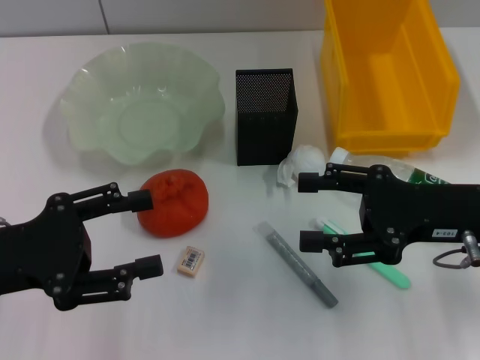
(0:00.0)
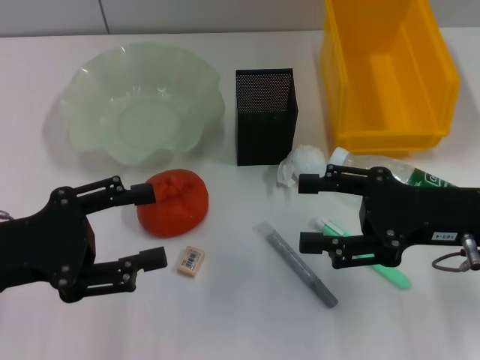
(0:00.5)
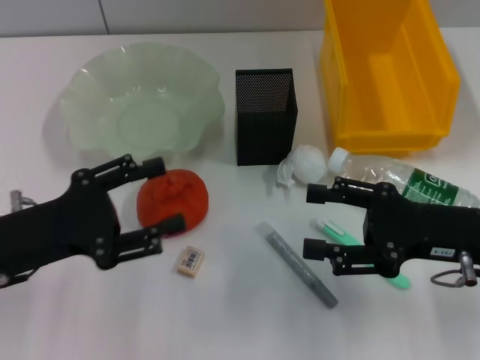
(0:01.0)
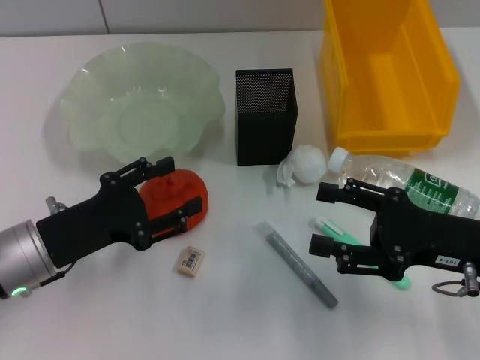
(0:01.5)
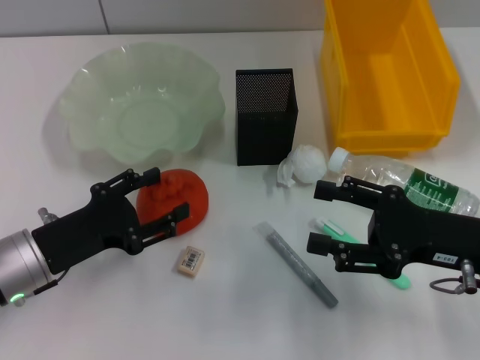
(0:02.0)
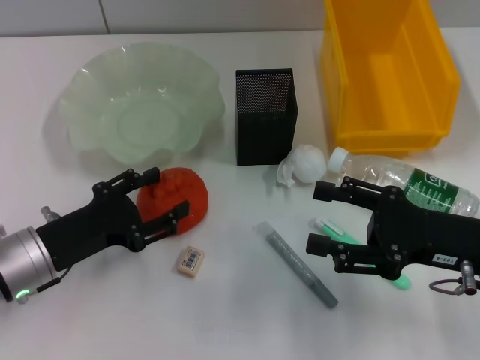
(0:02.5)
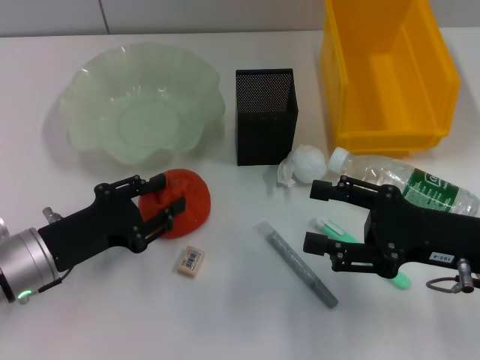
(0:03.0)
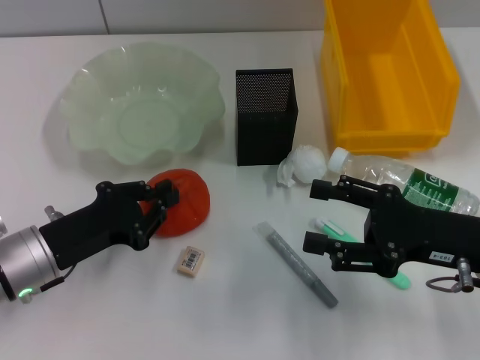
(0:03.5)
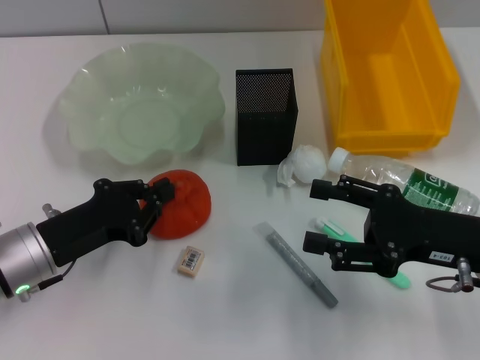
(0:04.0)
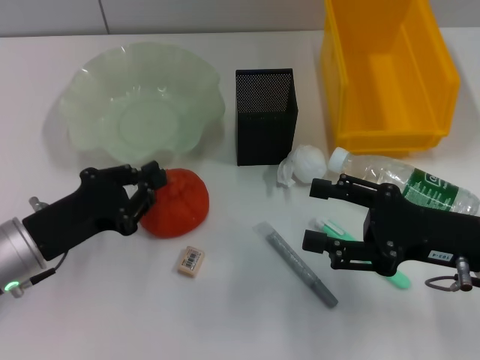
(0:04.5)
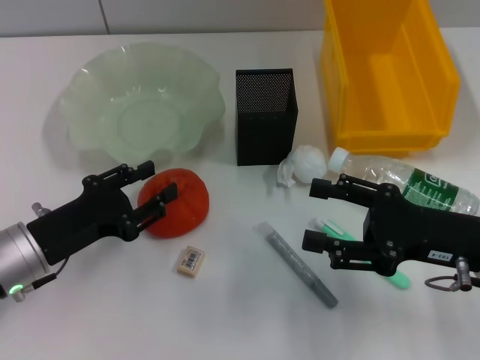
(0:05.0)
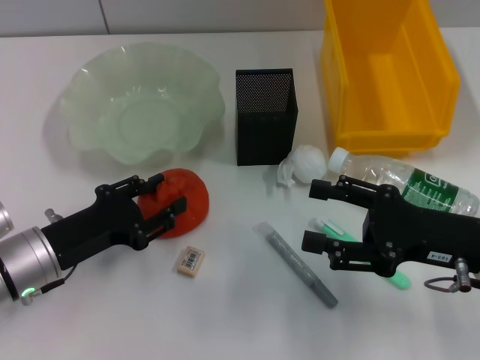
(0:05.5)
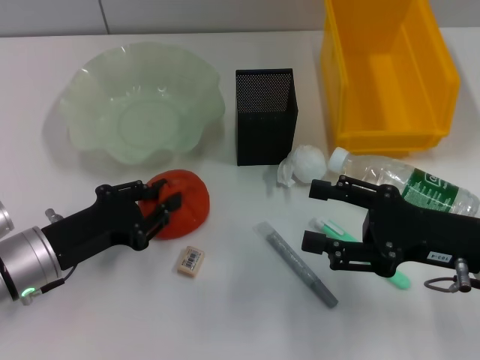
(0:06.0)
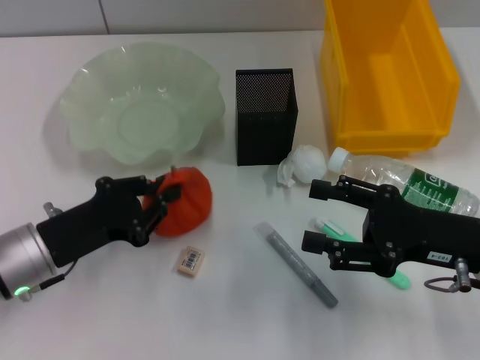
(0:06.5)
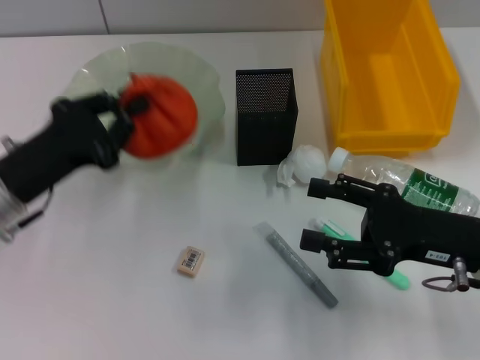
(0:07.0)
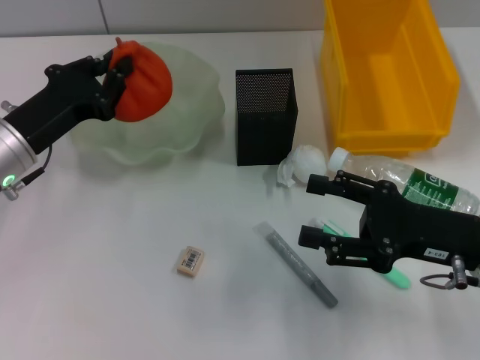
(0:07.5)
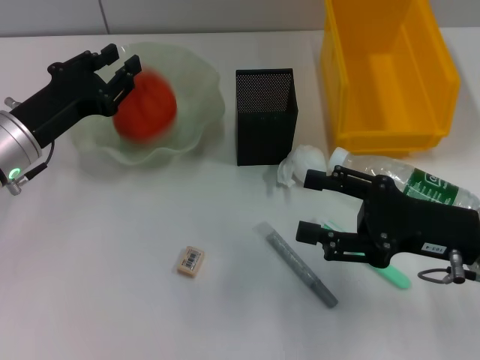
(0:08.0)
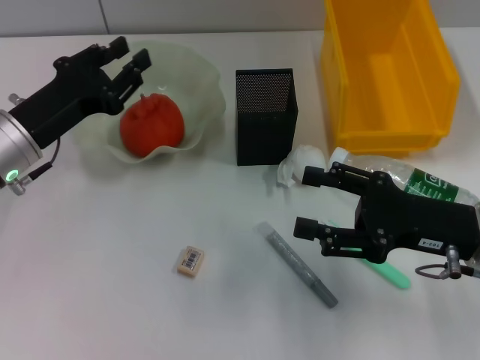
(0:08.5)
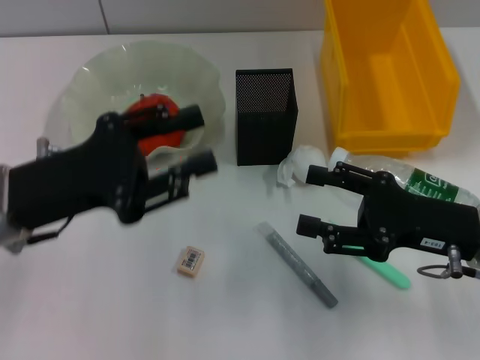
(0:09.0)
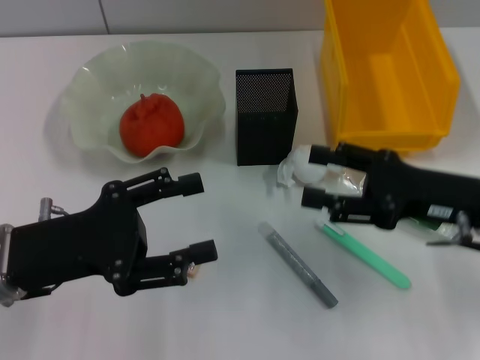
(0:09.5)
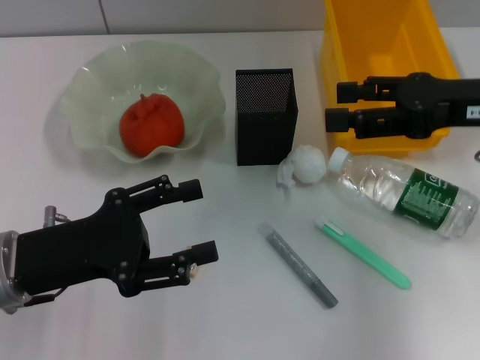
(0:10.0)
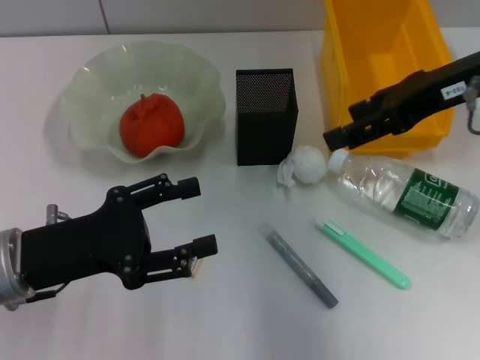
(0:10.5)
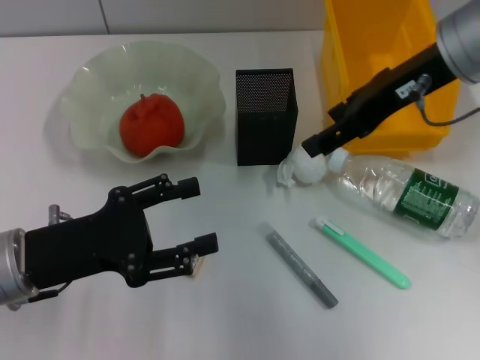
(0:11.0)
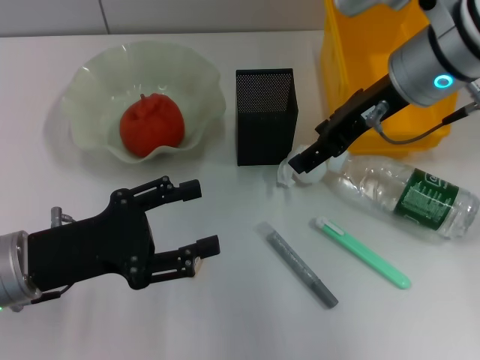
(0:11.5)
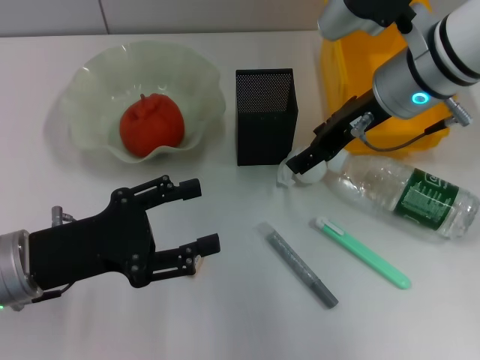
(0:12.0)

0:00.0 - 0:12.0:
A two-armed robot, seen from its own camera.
Step, 0:00.0 - 0:06.0: Grab the orange with the left hand.
Step, 0:06.5 - 0:08.0: Place the orange into the fruit bowl with the left hand.
0:00.0 - 0:02.0: The left gripper goes about 10 cm downward.
0:02.0 - 0:04.0: The left gripper closes.
0:04.0 - 0:06.0: The left gripper opens.
0:06.0 - 0:08.0: The left gripper moves forward and upward, approximately 10 cm.
0:08.0 - 0:10.0: The left gripper shifts some 10 cm backward, and opens up. Meanwhile the right gripper travels upward and forward by about 15 cm.
0:10.0 - 0:12.0: The right gripper heads to the left and forward, covering roughly 15 cm.

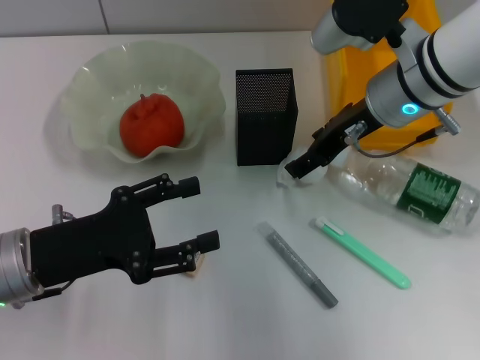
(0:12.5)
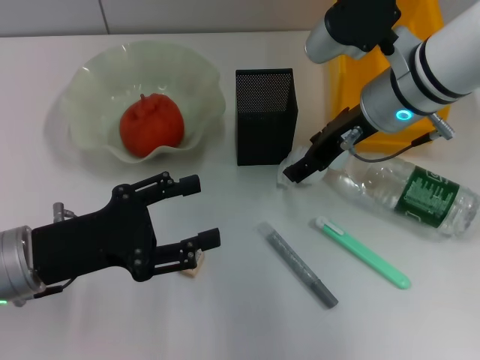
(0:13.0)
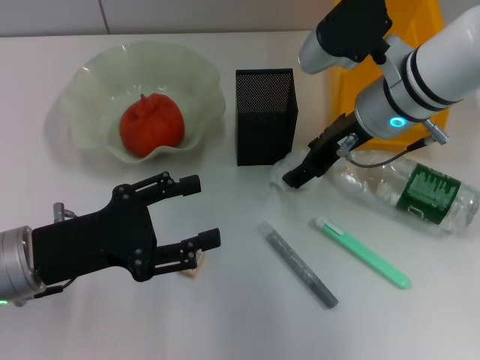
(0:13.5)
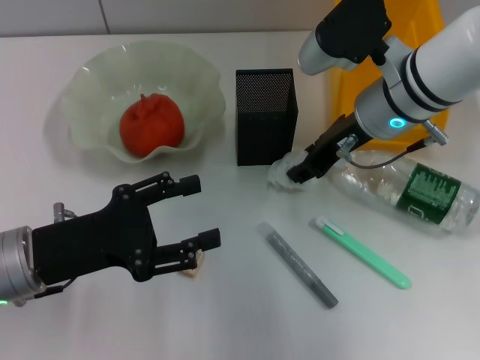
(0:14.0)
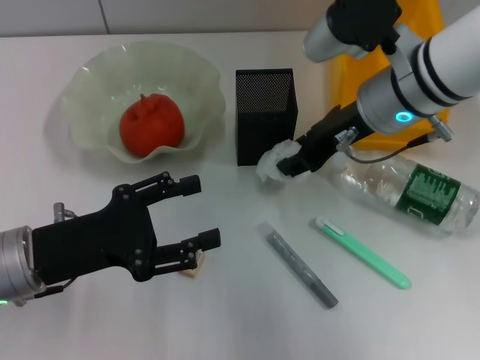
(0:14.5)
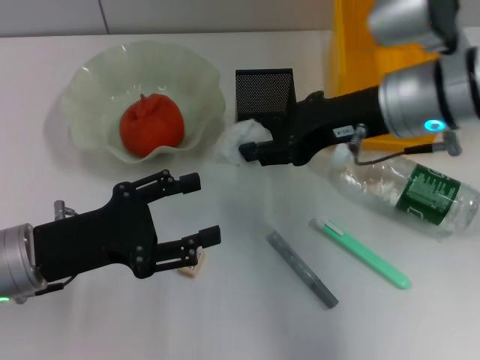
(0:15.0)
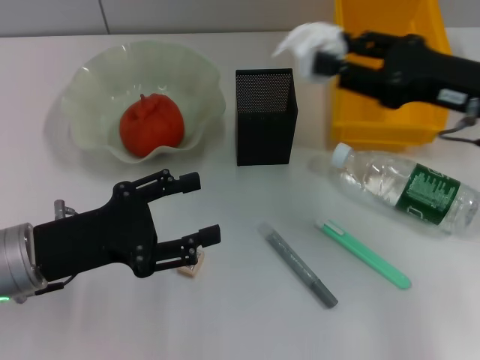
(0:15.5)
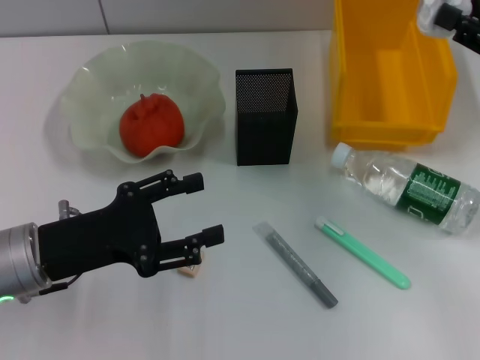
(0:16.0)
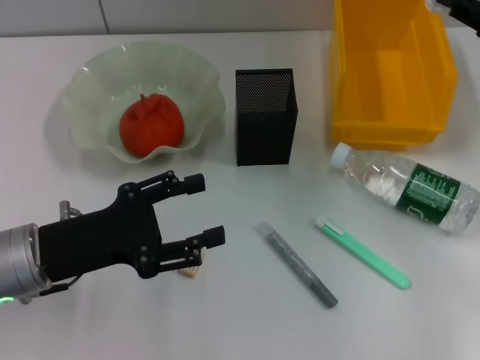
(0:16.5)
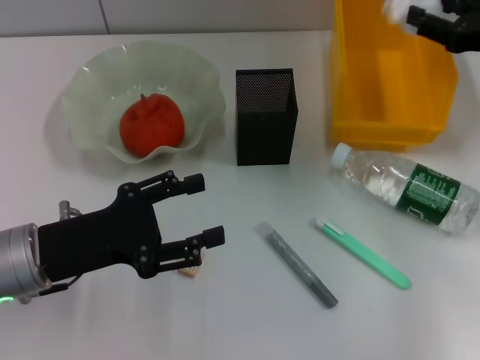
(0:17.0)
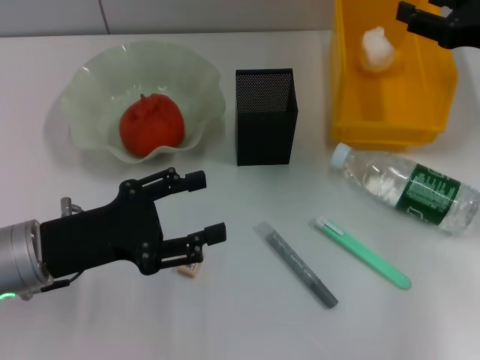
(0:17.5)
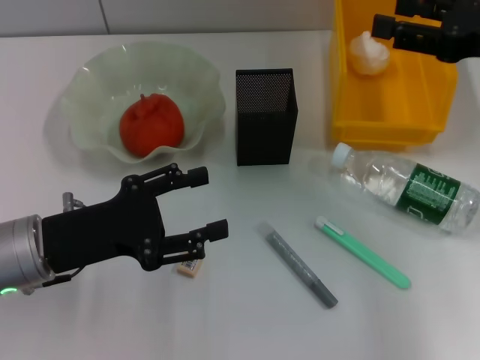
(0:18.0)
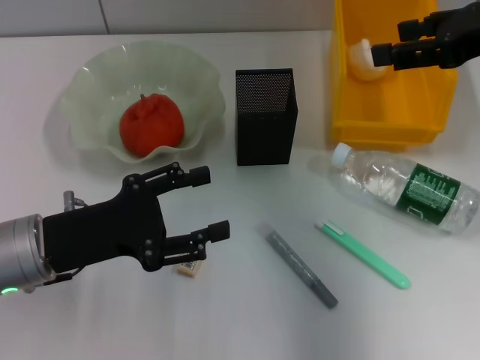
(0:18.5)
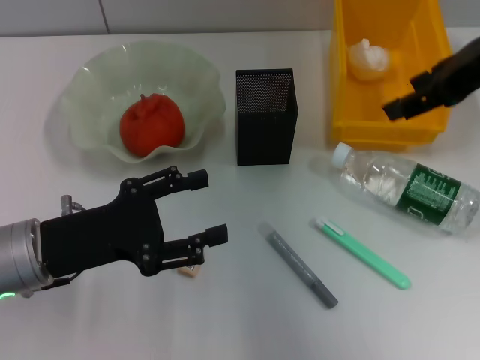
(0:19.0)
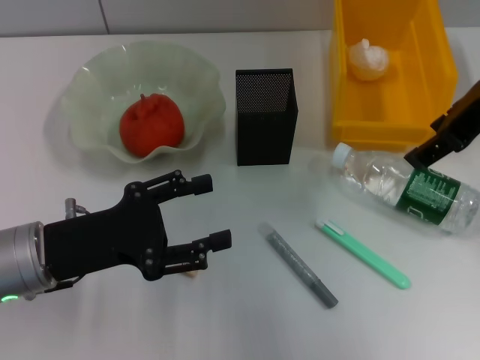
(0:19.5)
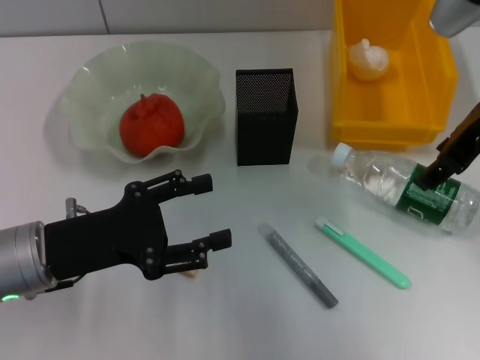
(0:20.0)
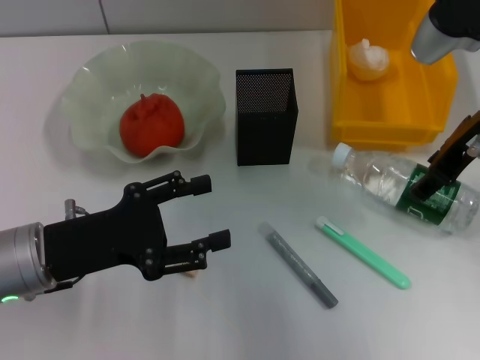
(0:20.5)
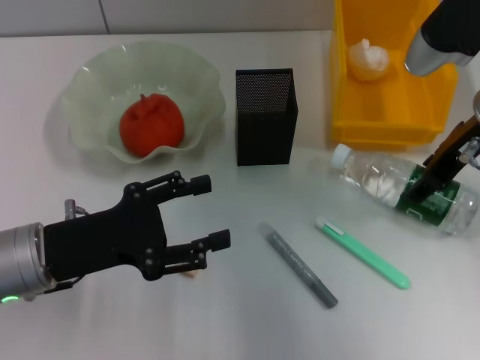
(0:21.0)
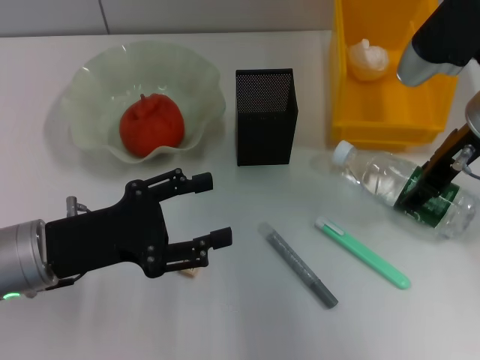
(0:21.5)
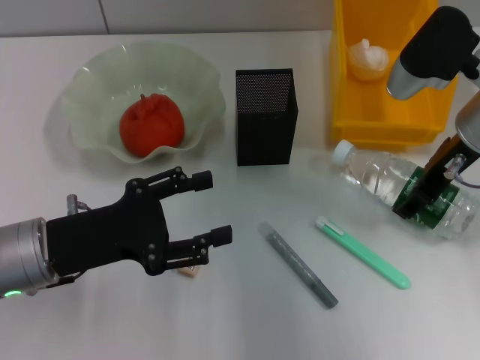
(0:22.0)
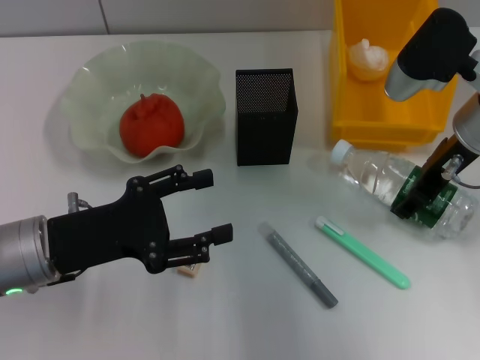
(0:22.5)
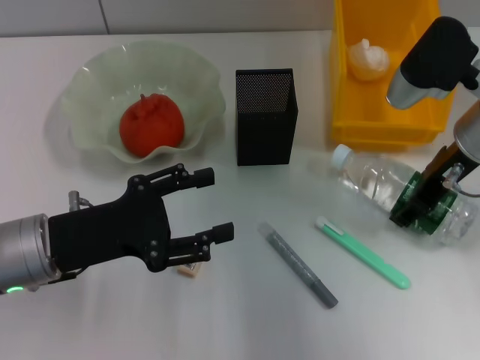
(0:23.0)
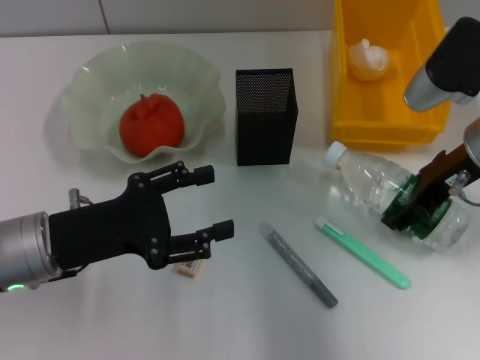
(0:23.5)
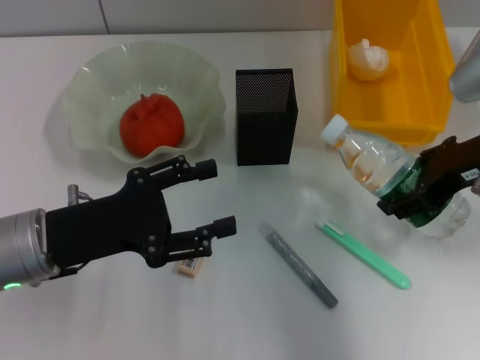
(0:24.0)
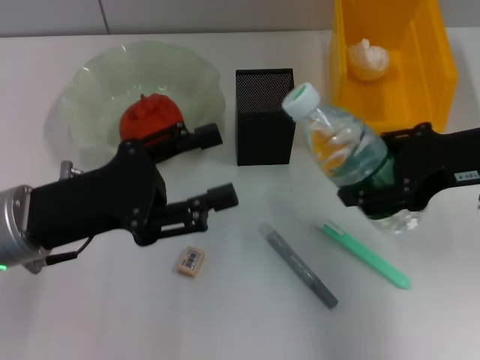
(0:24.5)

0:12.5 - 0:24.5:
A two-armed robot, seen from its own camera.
Step, 0:14.0 - 0:17.0: Place the paper ball into the trash can with the right hand.
Step, 0:17.5 - 0:22.5: Grab the water bottle with the right hand.
0:12.5 - 0:14.5: The right gripper closes.
0:14.5 - 0:16.5: The right gripper moves to the right, about 20 cm.
0:16.5 - 0:18.5: The right gripper shifts about 10 cm upward and to the left.
0:18.5 - 0:20.5: The right gripper is displaced downward by about 5 cm.
0:20.5 - 0:22.5: The grippers move only a little.
0:22.5 - 0:24.5: The right gripper is displaced backward by approximately 10 cm.

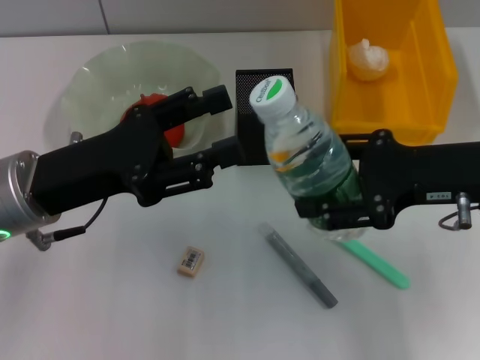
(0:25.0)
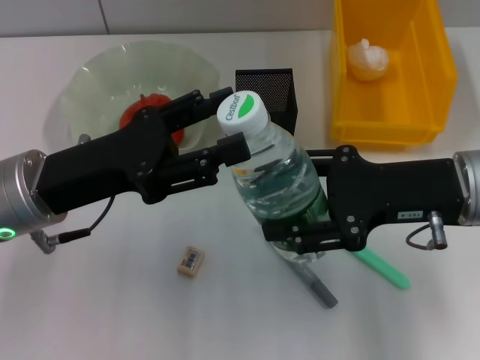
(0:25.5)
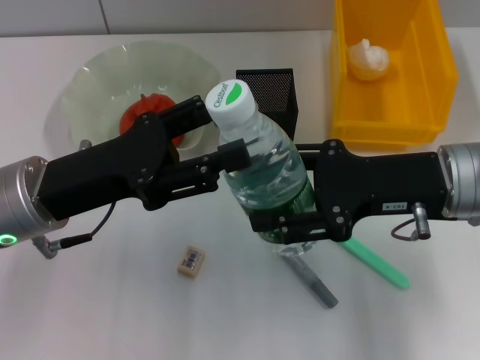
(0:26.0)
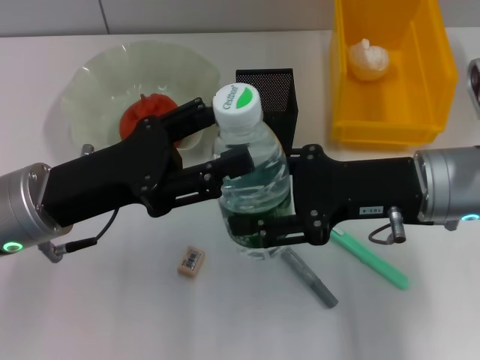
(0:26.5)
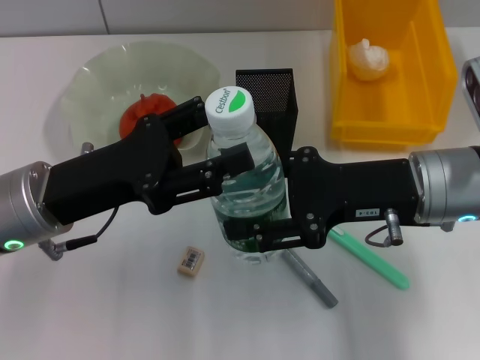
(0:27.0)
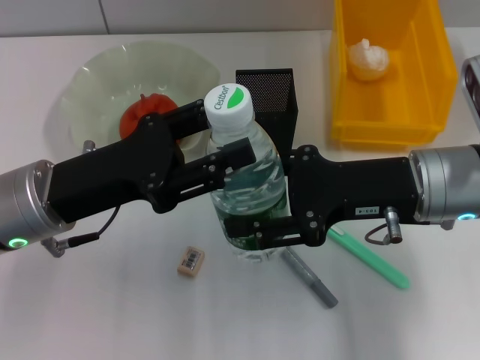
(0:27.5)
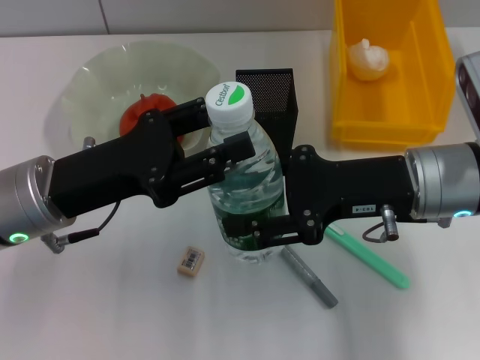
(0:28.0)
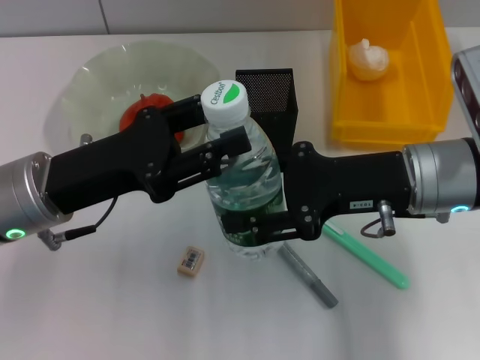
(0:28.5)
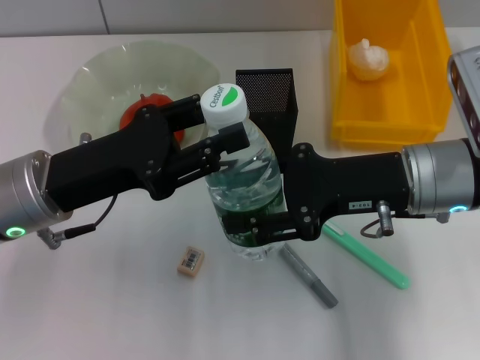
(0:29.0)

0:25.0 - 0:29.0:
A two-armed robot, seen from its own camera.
0:25.0 - 0:27.0: The right gripper travels to the left by approximately 5 cm.
0:27.0 - 0:29.0: Both grippers stay put.
